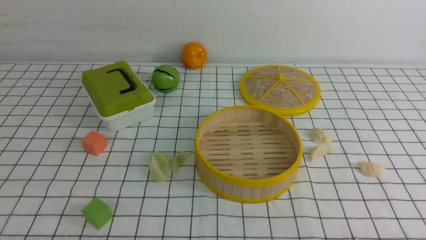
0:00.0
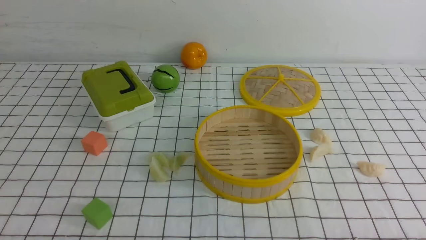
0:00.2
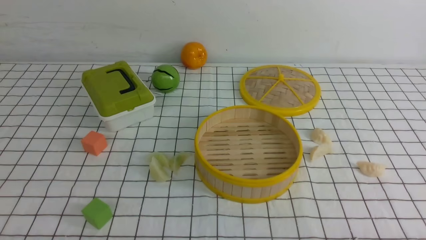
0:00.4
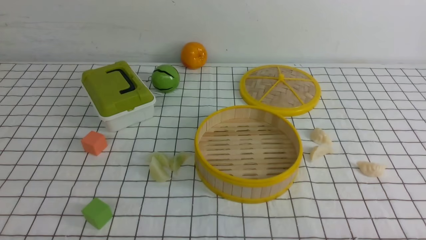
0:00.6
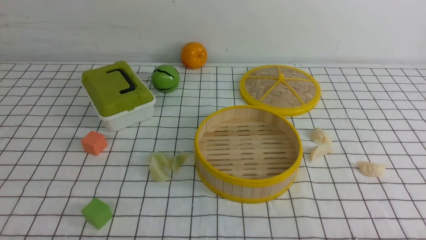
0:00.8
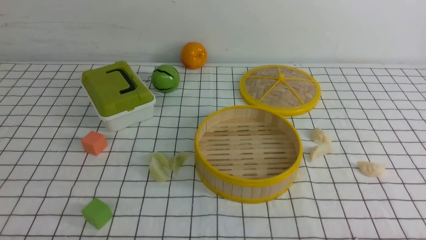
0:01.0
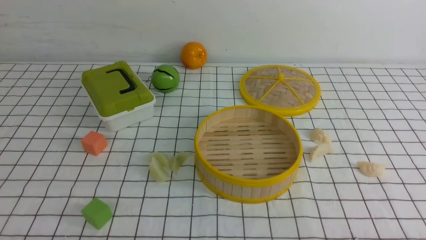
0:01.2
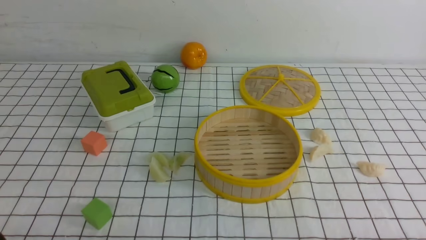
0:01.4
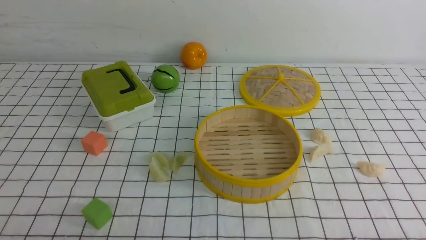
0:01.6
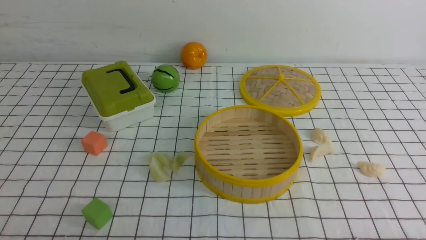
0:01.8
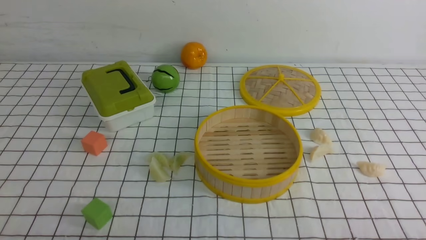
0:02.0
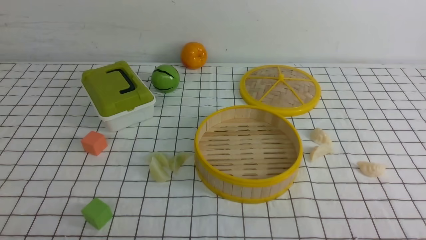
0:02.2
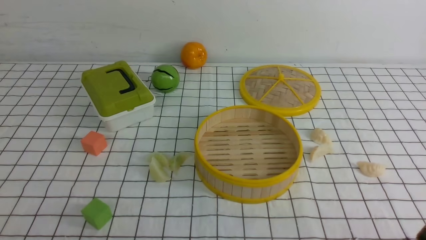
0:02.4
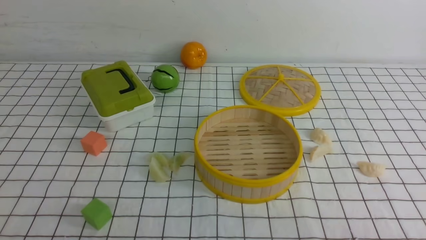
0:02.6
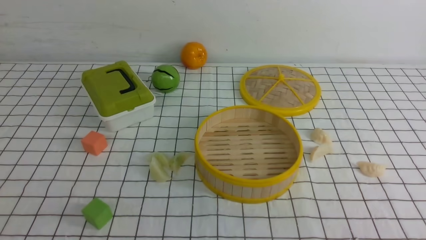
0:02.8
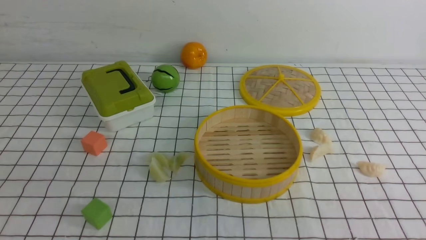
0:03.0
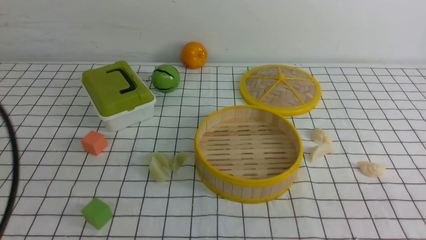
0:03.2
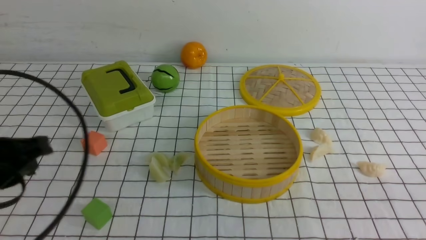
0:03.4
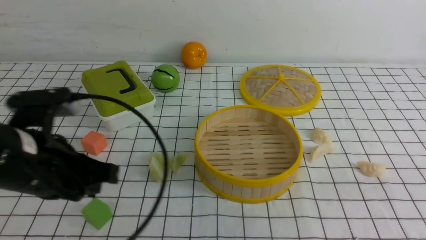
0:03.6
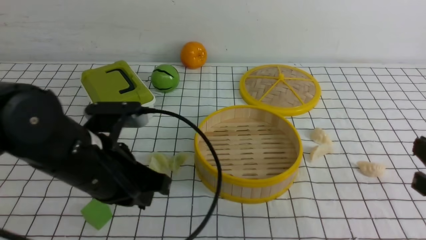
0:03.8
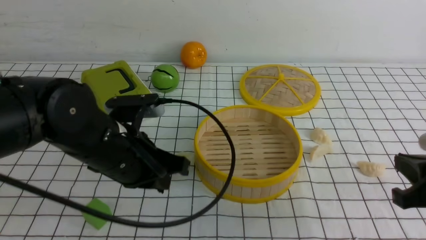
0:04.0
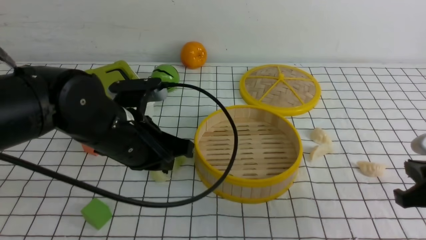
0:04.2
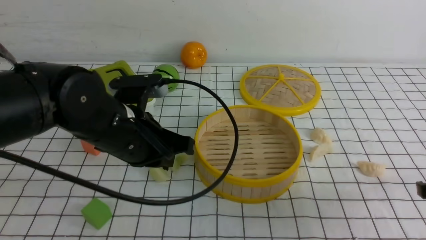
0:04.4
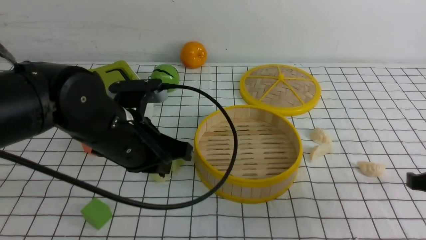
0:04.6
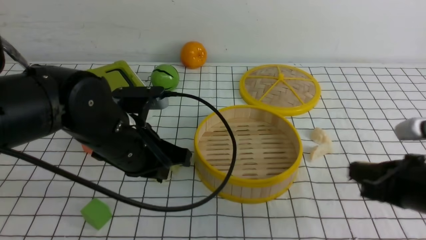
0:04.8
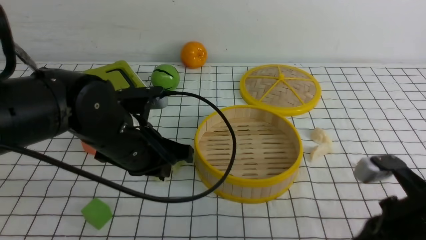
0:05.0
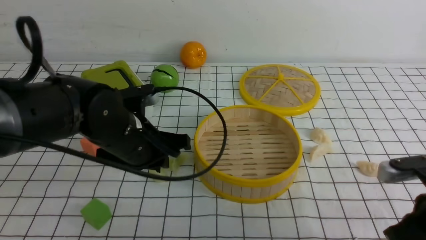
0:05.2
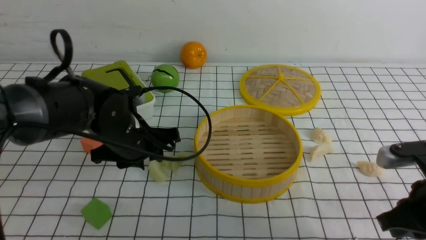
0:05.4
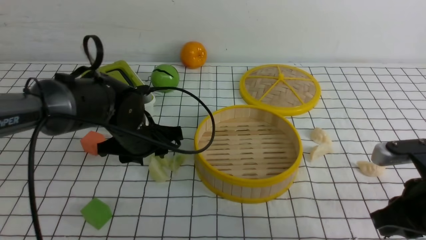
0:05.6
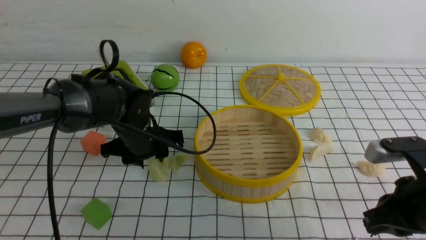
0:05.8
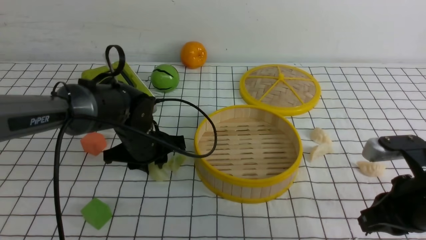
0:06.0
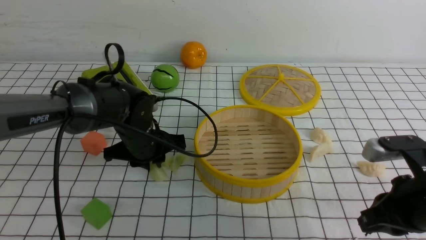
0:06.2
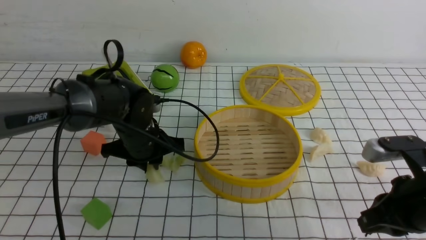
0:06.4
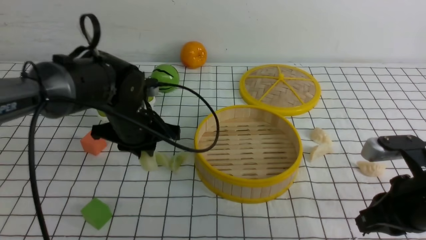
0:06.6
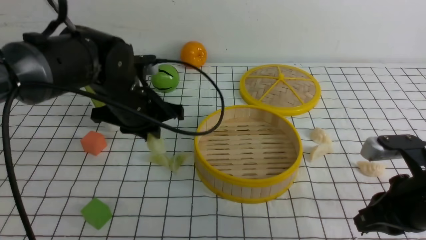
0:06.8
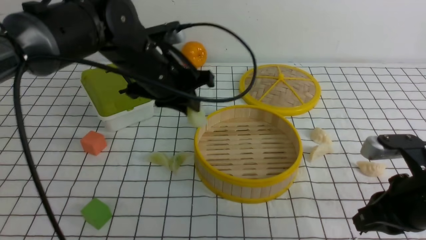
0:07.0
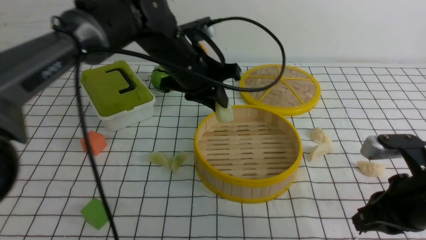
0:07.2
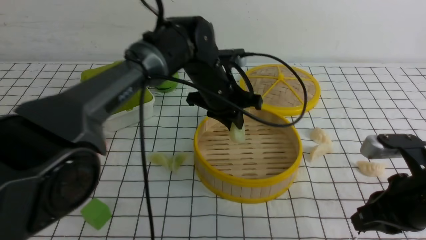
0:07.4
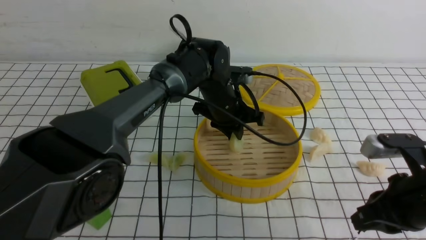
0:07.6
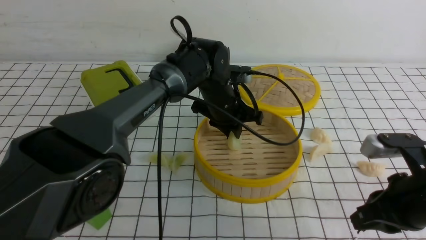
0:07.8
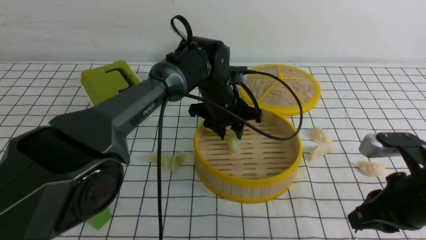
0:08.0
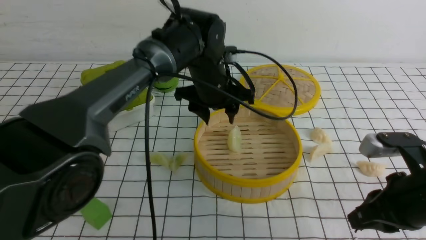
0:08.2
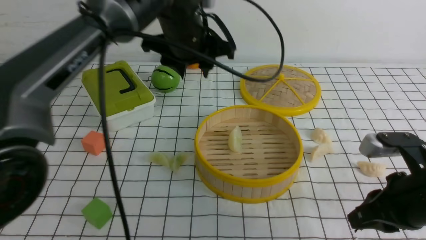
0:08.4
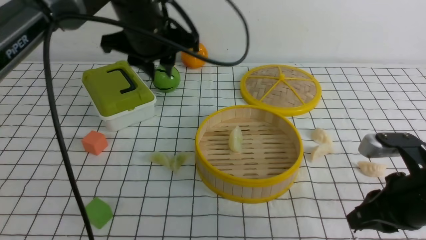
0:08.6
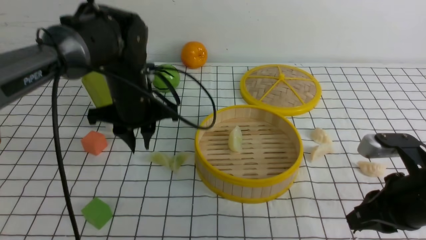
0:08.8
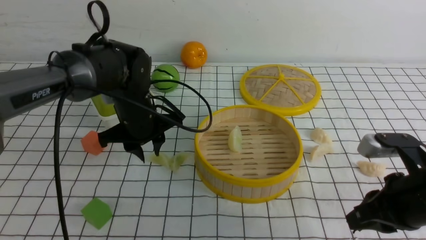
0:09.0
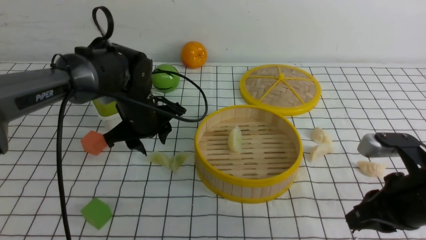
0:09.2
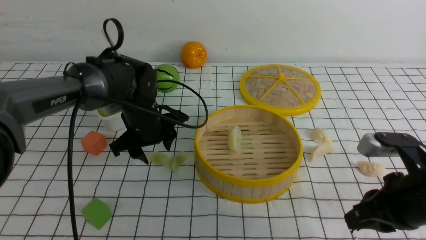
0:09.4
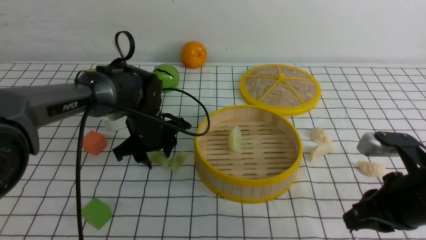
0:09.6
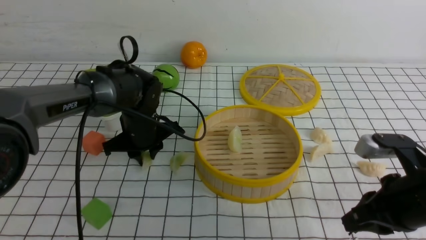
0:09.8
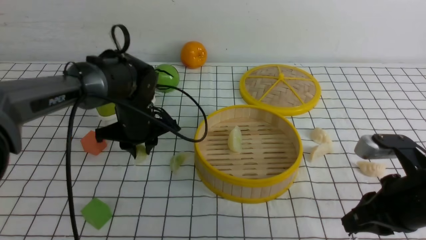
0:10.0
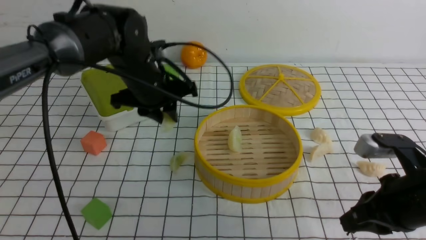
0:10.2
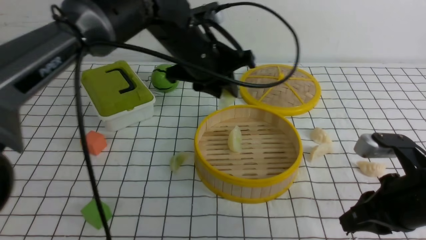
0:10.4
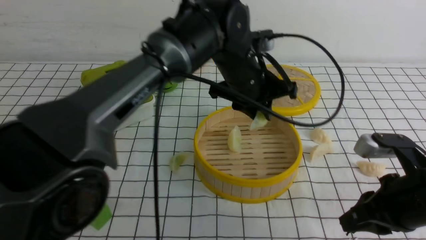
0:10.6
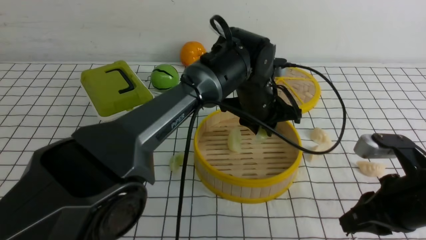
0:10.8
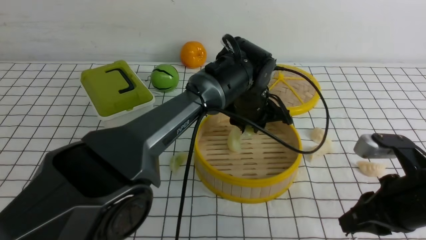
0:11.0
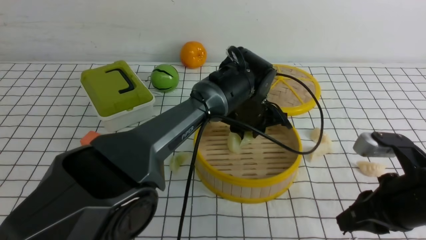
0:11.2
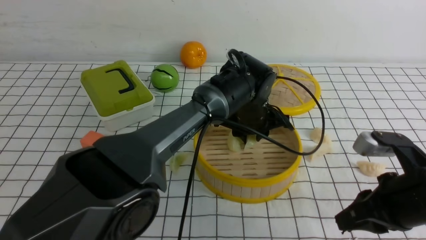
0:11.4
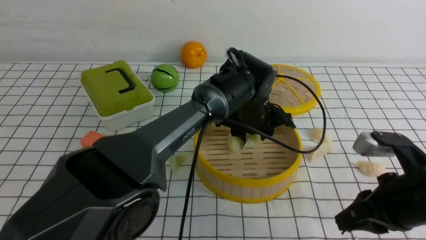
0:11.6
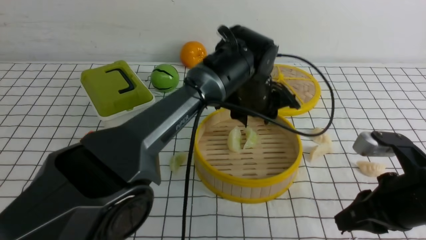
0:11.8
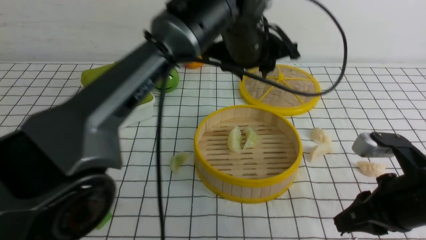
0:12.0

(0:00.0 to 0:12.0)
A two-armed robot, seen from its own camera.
Task of the whole recording: put the dumplings into the steamer on the table with the white tablecloth.
Step, 0:00.0 - 0:06.6: use the left arm to grab a dumpling.
Step, 0:07.0 - 0:08.6: use the left arm to put the dumpling into the steamer.
Step, 0:08.8 - 0:10.4: use the left arm to grab a dumpling.
Step, 0:10.6 - 0:11.8: use the left arm to put the dumpling into the steamer.
0:03.0 - 0:04.4: The right gripper heads forward, covering approximately 15 cm; the left gripper heads forward and to the right, covering roughly 25 cm.
0:04.4 - 0:06.0: The right gripper is displaced to the left by roughly 5 cm. Meanwhile the left gripper moves forward and downward, about 15 cm, and opens.
0:06.0 - 0:07.6: The left gripper heads to the right and forward, covering approximately 15 cm.
0:07.6 - 0:09.0: The left gripper heads to the left, covering about 15 cm, and opens up.
0:09.0 - 0:10.4: The left gripper moves to the right and upward, some 15 cm.
0:10.4 - 0:12.0: The left gripper goes some 5 cm upward, and opens.

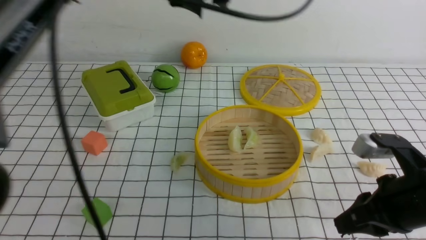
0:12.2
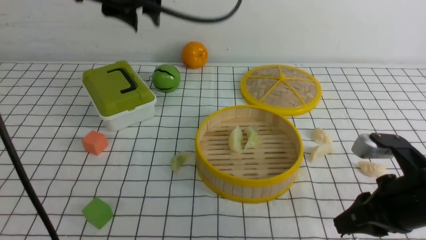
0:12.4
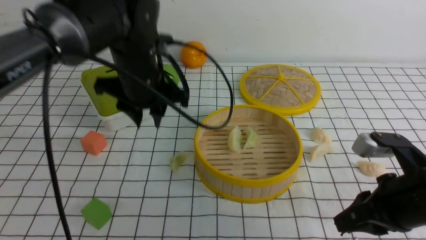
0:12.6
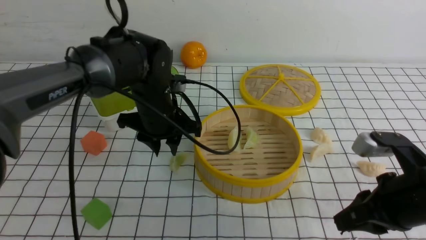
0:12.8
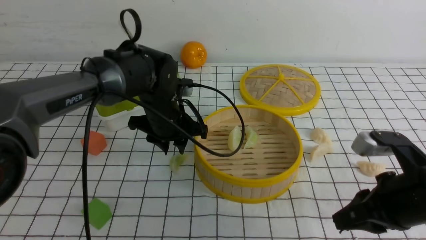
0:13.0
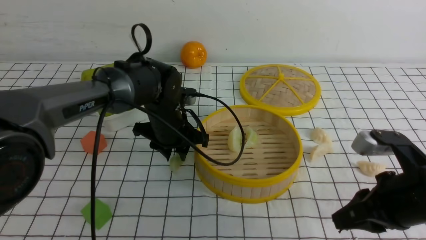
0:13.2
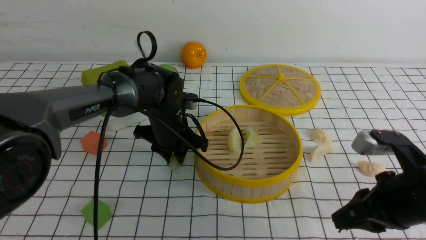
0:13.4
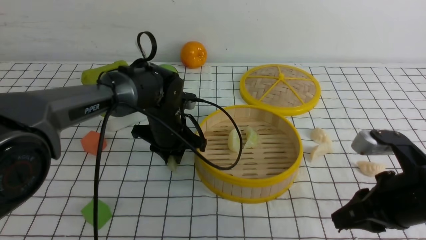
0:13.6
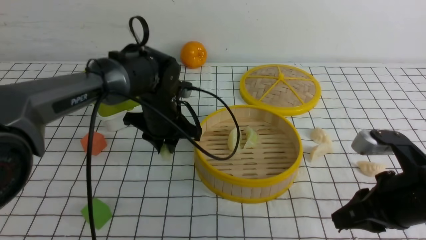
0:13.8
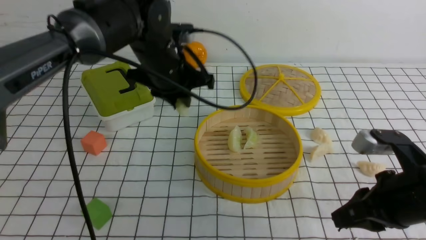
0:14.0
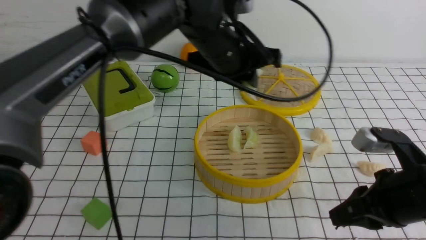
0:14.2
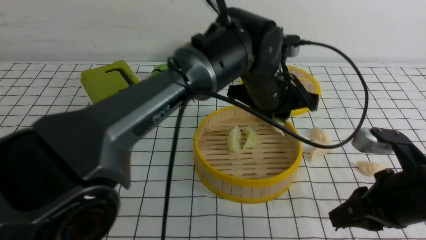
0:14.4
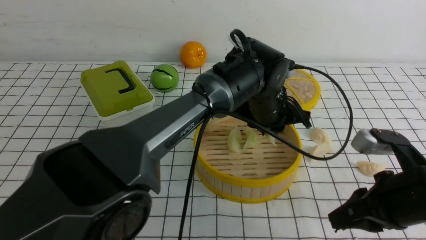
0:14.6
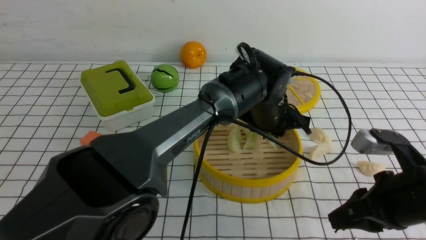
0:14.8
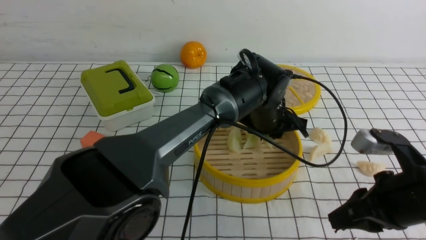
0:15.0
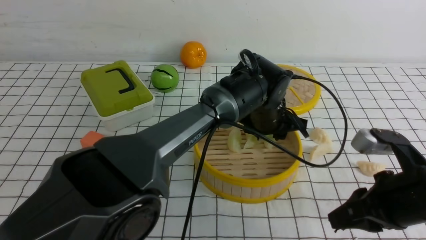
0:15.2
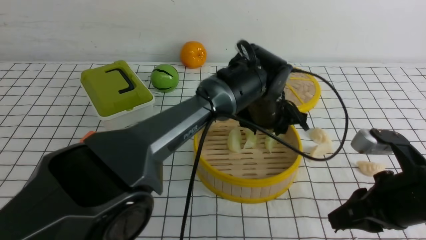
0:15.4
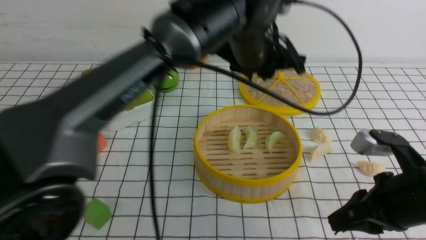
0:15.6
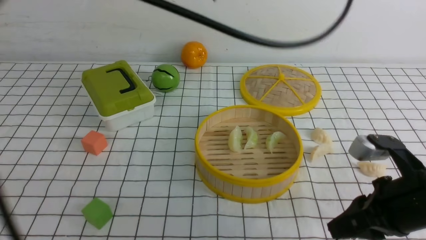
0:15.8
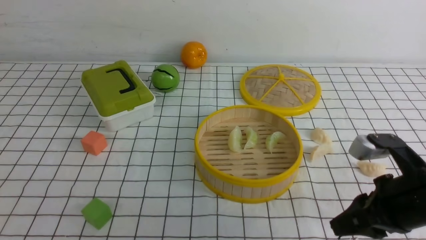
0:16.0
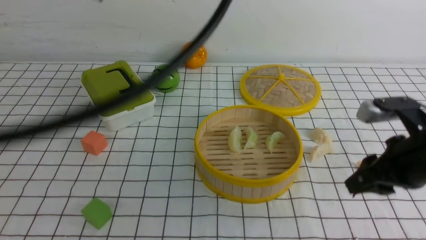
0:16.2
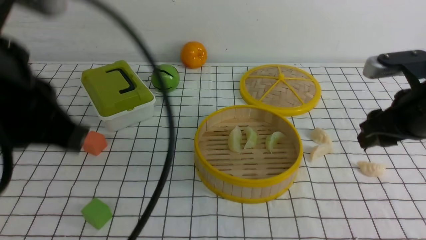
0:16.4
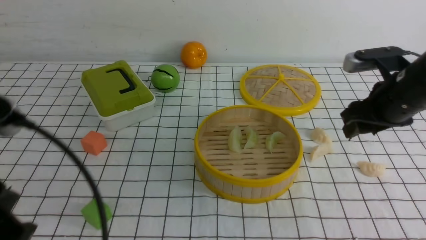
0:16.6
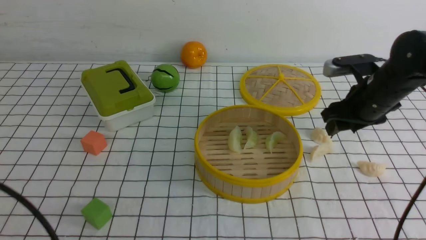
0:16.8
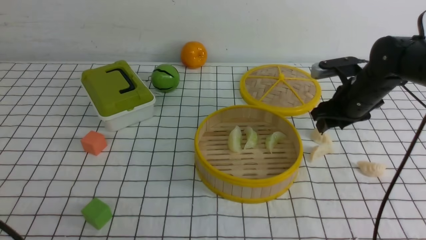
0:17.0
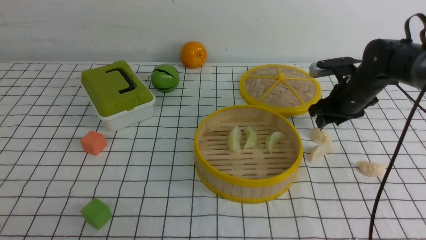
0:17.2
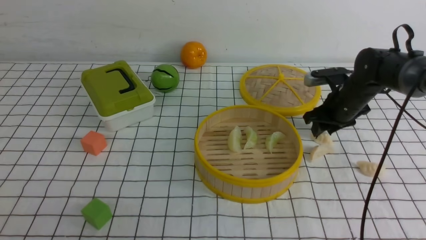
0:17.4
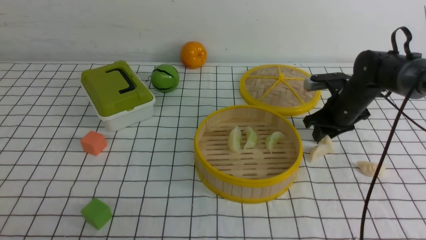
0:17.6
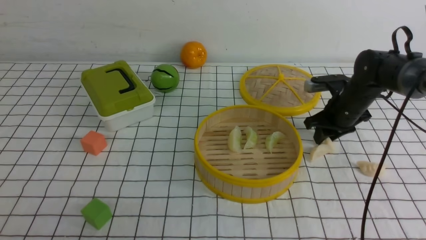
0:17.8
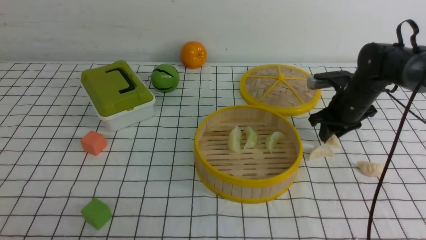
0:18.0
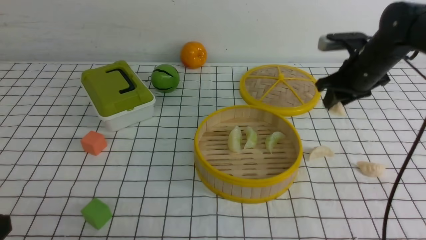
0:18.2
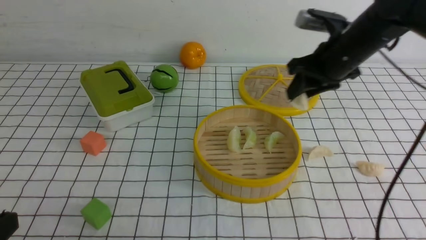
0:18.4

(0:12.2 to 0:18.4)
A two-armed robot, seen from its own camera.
Task of the whole recording: put the dumplings into the steamer on the table with the white tablecloth.
Step, 0:12.2 - 0:13.8: use the left arm to grab a dumpling.
Step, 0:14.0 - 0:15.6: use the left arm to put the dumpling into the steamer.
Step, 0:15.8 - 0:18.2: use the right arm to grab a dumpling.
0:12.2 - 0:13.8: The left gripper heads downward, covering some 20 cm, and closes its fingers.
0:13.8 - 0:15.4: The left gripper shifts approximately 15 cm to the right.
0:15.4 - 0:16.8: The left gripper shifts about 40 cm to the left and backward, and closes its fingers. Meanwhile the right gripper goes roughly 20 cm forward, and opens.
0:16.8 - 0:18.4: The left gripper moves some 5 cm; the right gripper moves to the left, approximately 10 cm, goes downward and returns, roughly 10 cm each way, and closes up.
